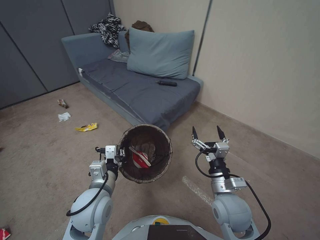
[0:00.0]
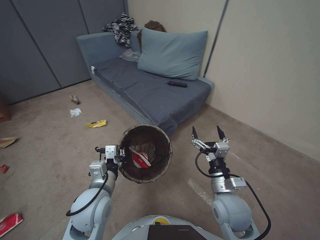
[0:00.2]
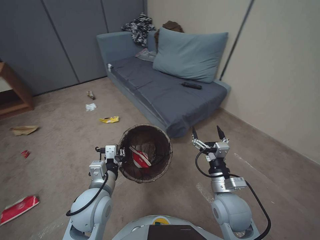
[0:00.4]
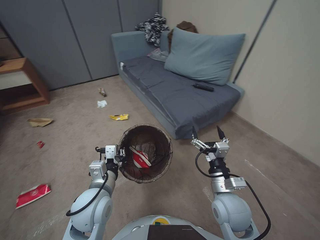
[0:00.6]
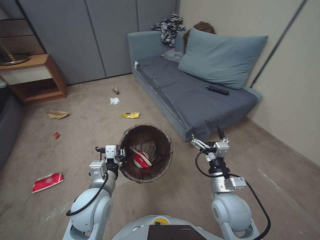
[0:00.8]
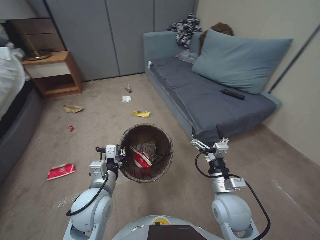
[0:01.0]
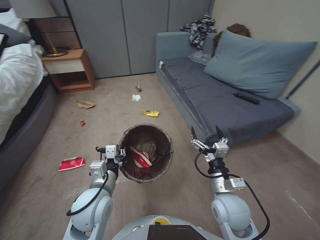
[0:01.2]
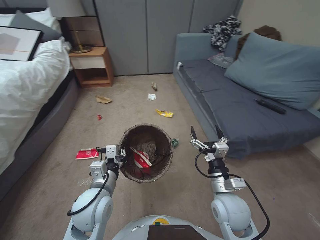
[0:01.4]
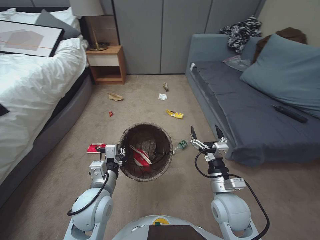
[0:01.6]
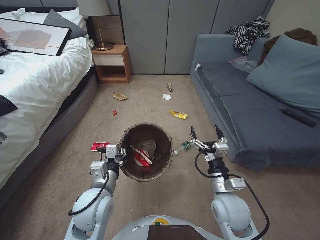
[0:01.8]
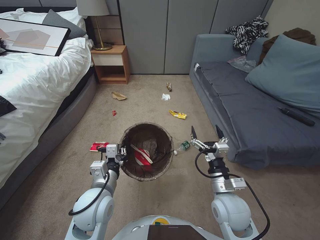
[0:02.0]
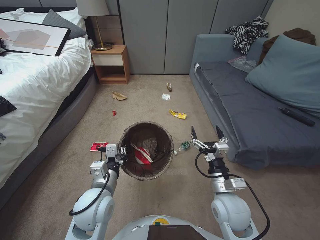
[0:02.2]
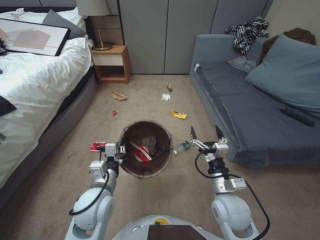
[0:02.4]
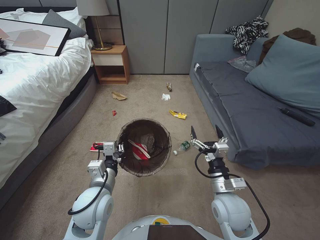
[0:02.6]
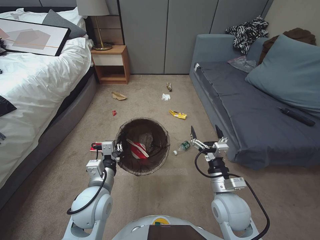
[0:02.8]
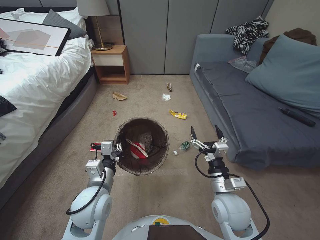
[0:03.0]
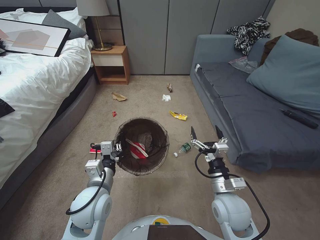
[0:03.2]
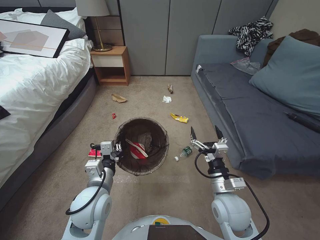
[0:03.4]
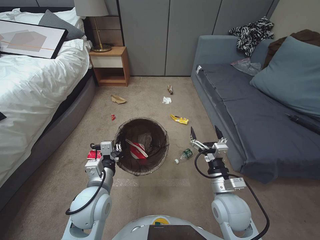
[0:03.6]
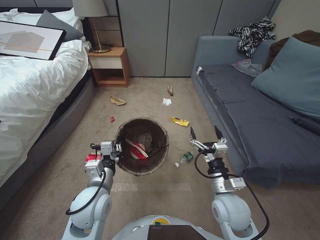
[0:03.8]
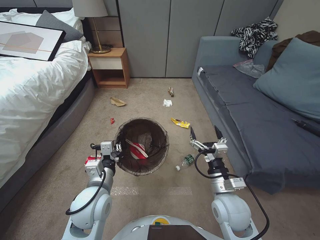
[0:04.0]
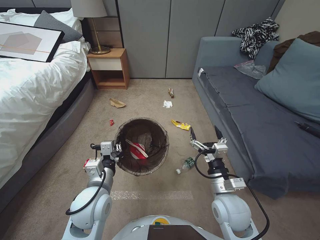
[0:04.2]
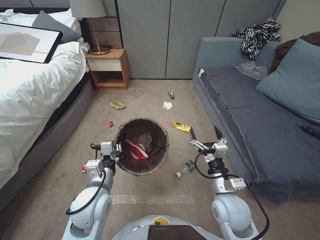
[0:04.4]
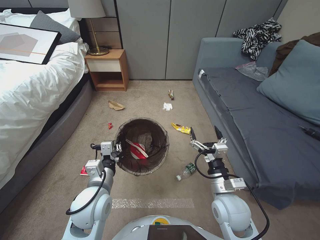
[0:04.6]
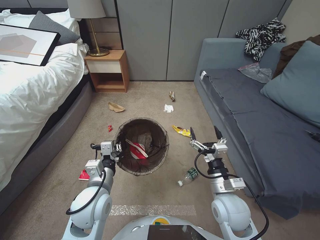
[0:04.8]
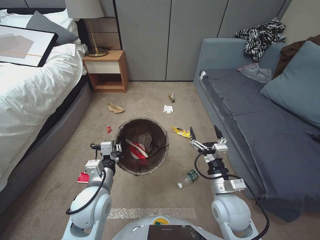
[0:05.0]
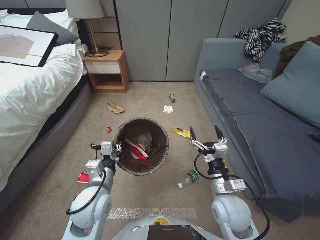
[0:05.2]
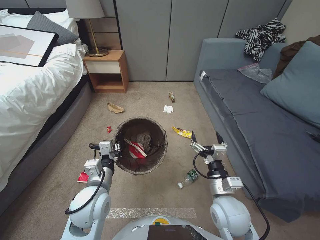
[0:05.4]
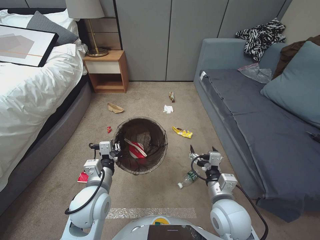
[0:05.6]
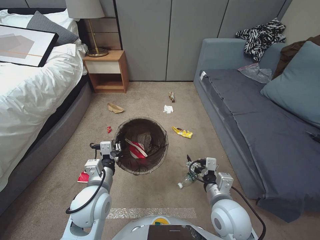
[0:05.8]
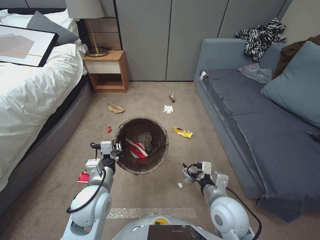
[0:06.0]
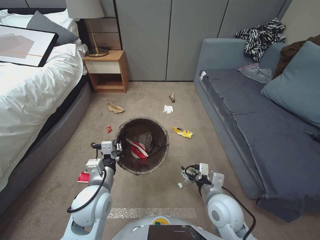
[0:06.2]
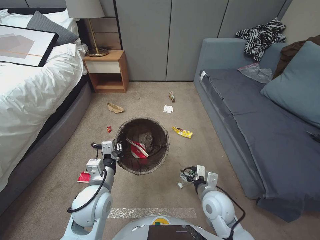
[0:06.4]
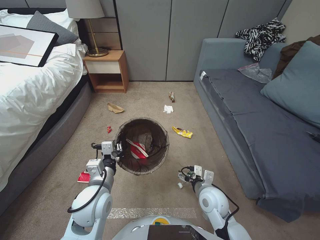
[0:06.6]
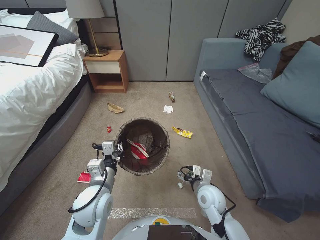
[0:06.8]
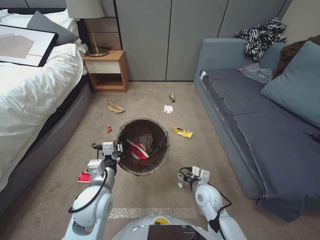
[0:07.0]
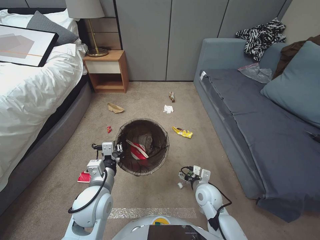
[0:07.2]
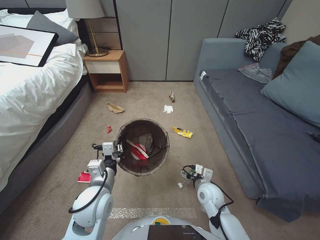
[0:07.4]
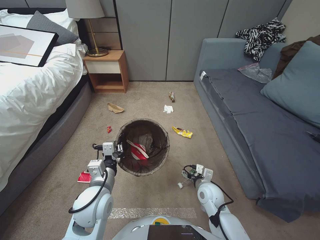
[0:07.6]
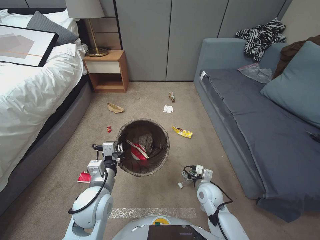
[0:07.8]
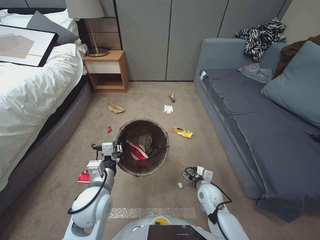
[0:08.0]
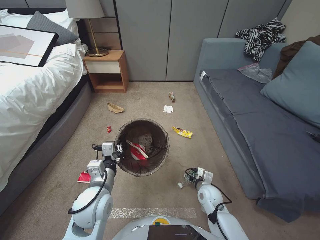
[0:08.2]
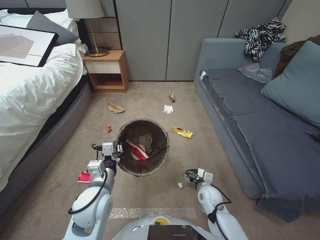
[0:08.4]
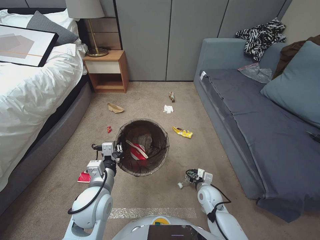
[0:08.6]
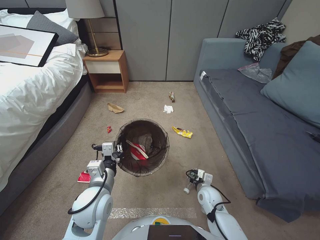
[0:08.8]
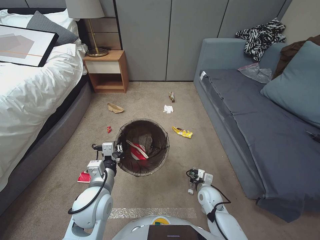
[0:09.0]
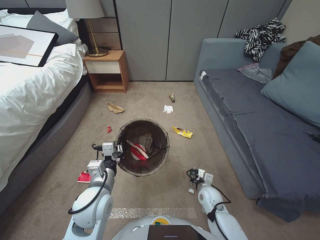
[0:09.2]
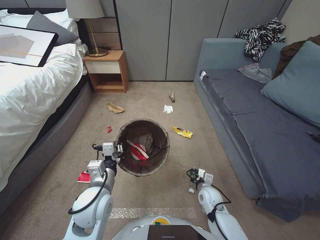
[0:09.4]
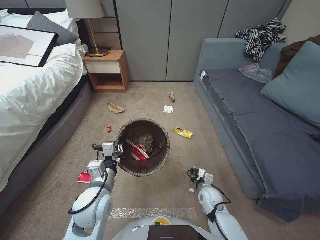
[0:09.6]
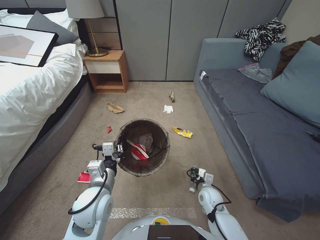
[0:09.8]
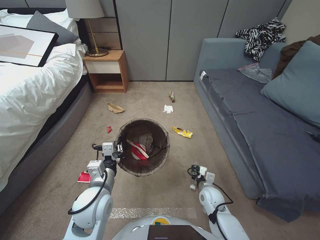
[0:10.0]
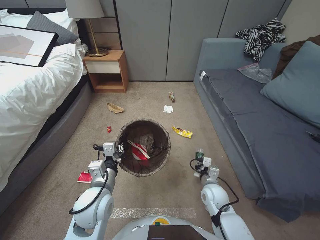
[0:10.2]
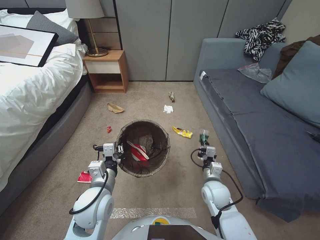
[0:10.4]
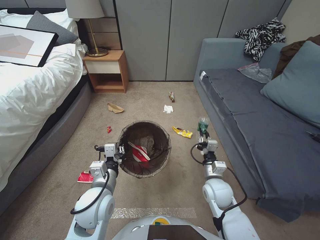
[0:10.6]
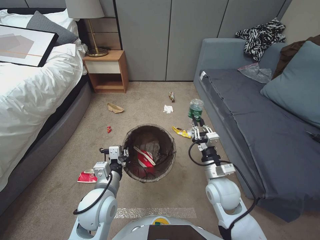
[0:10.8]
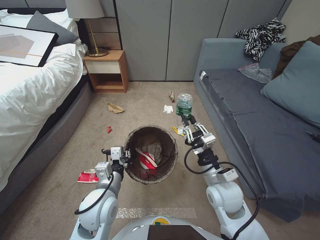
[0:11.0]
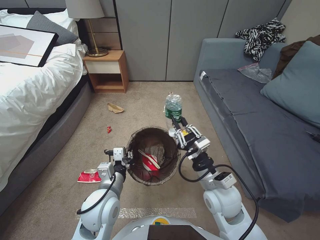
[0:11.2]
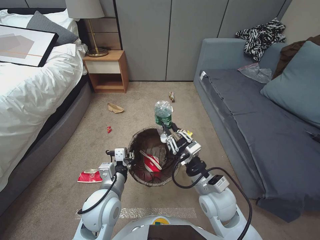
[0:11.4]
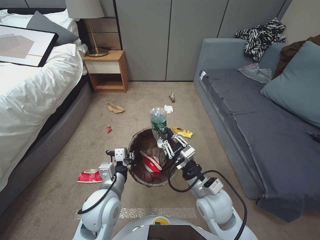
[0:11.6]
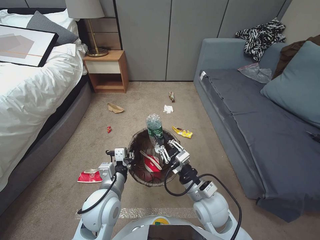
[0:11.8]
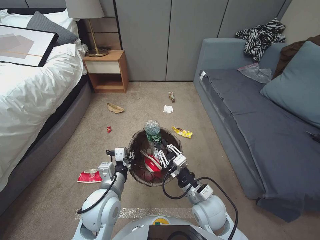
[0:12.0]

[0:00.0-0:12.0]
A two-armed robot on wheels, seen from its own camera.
Task of the whole recording: Pick up the trash bin, then pick up the garbage from the floor and place it into the trash bin.
0:01.6 to 0:03.0: There are only small adjustments of the grippers.
0:06.0 to 0:07.6: The right gripper moves downward and forward, roughly 15 cm.
0:07.6 to 0:09.0: The right gripper heads downward, covering some 5 cm, and closes up.
0:09.0 to 0:10.4: The right gripper heads upward, covering approximately 5 cm.
0:10.4 to 0:12.0: The right gripper goes about 15 cm upward, to the left and backward.

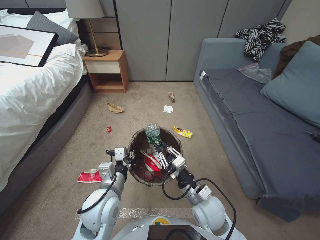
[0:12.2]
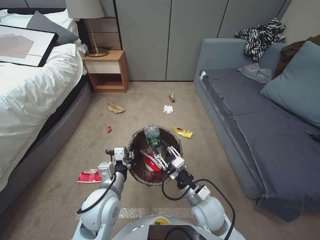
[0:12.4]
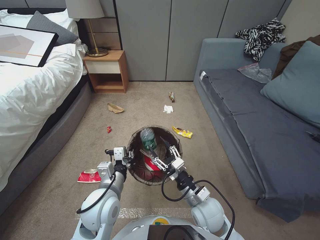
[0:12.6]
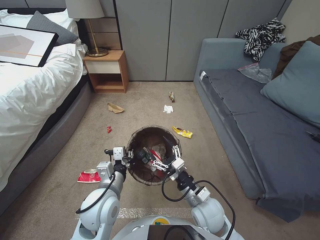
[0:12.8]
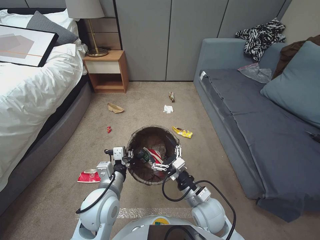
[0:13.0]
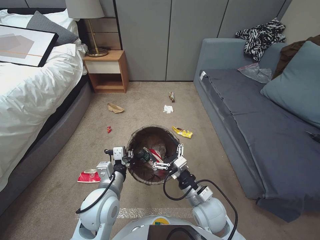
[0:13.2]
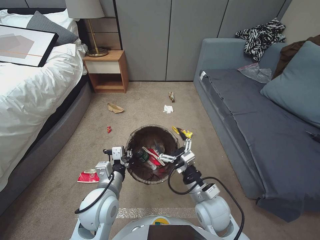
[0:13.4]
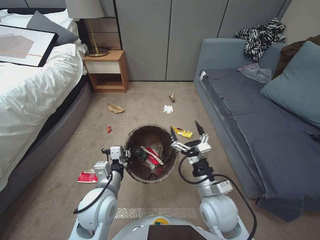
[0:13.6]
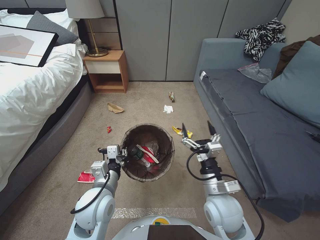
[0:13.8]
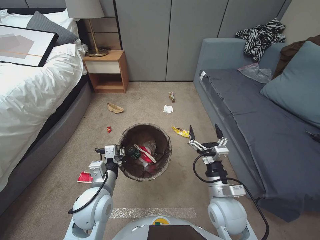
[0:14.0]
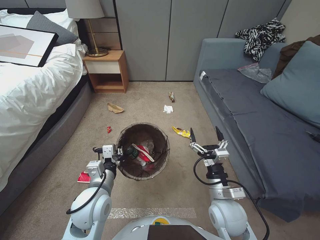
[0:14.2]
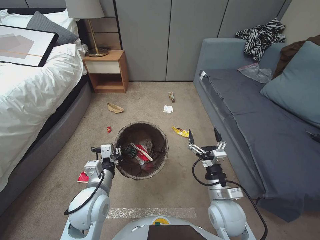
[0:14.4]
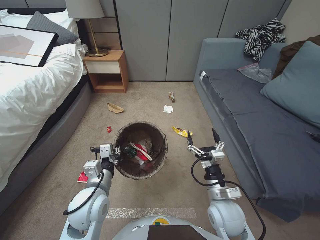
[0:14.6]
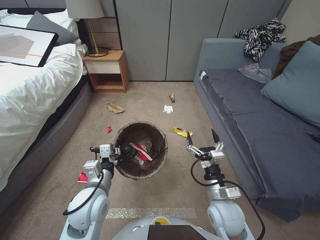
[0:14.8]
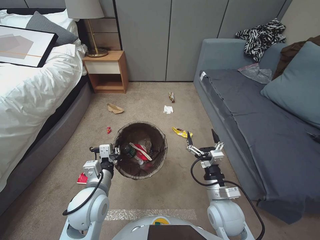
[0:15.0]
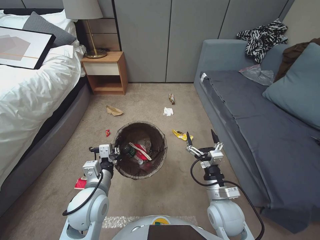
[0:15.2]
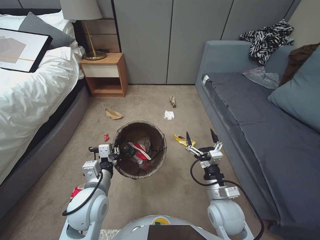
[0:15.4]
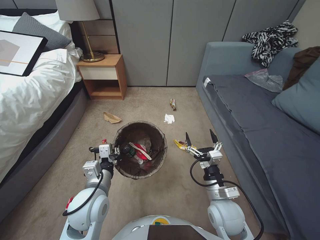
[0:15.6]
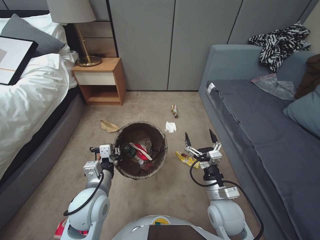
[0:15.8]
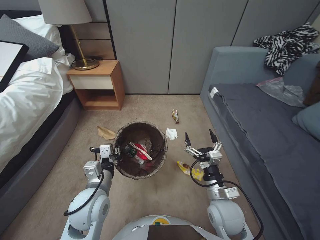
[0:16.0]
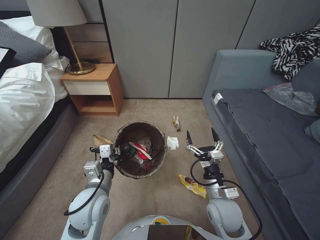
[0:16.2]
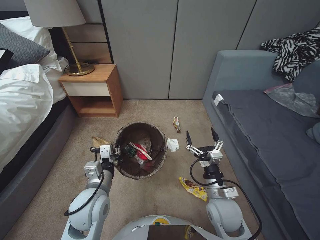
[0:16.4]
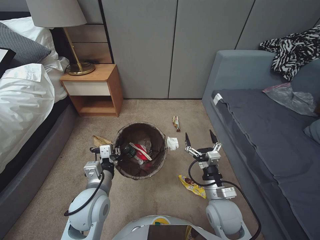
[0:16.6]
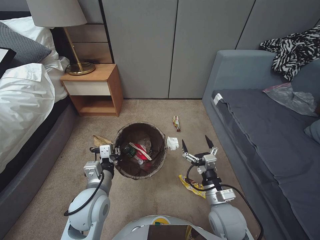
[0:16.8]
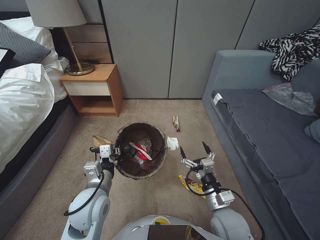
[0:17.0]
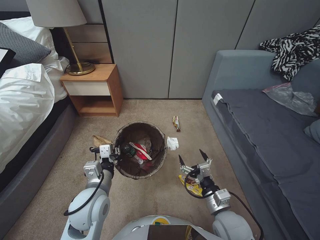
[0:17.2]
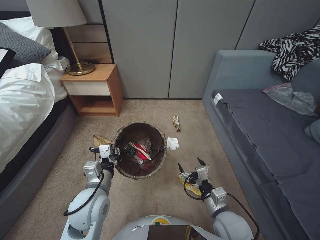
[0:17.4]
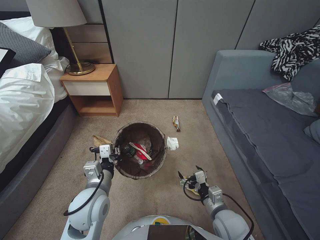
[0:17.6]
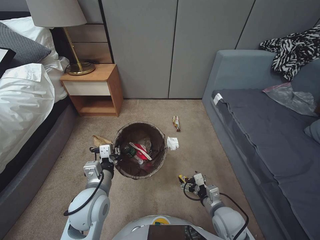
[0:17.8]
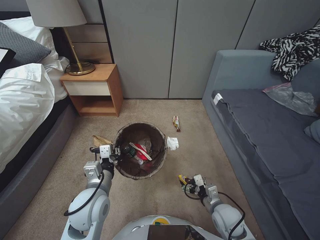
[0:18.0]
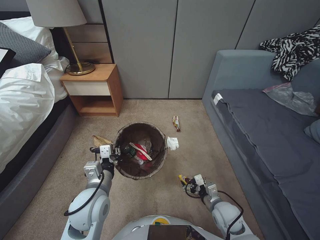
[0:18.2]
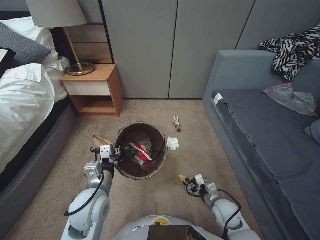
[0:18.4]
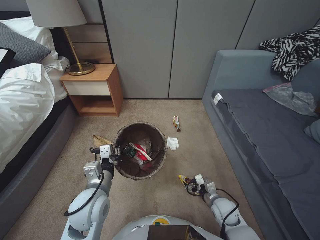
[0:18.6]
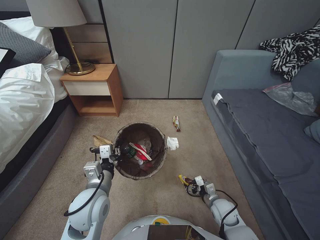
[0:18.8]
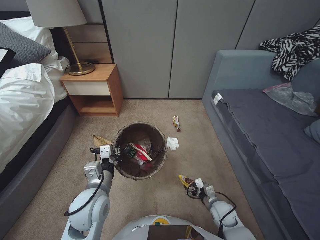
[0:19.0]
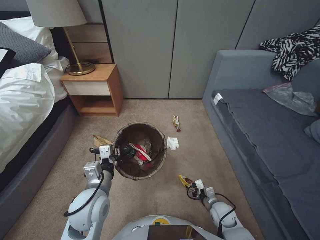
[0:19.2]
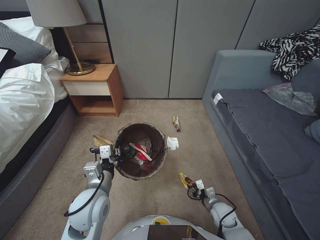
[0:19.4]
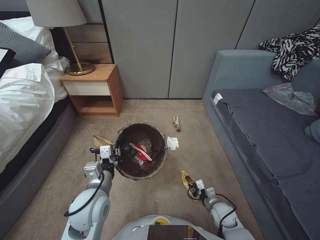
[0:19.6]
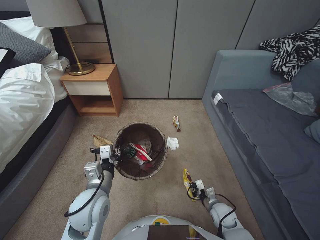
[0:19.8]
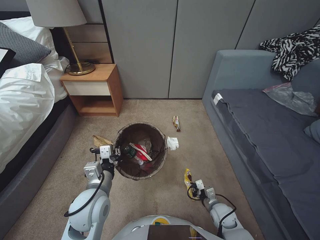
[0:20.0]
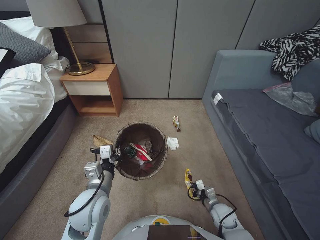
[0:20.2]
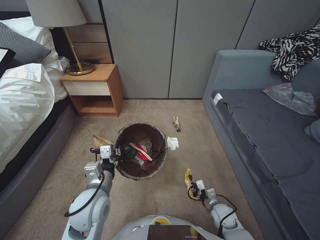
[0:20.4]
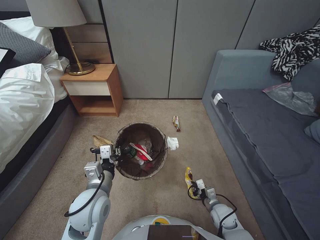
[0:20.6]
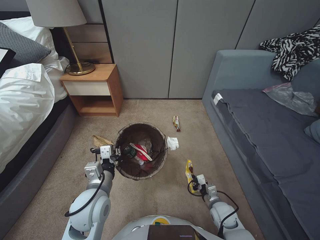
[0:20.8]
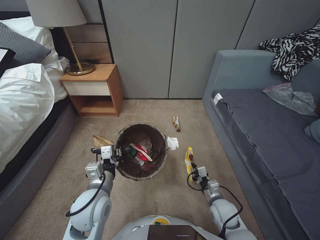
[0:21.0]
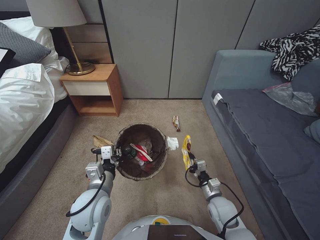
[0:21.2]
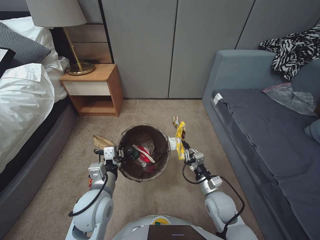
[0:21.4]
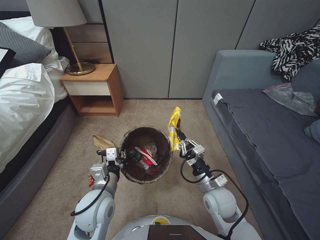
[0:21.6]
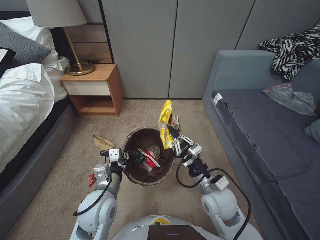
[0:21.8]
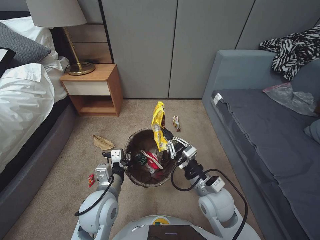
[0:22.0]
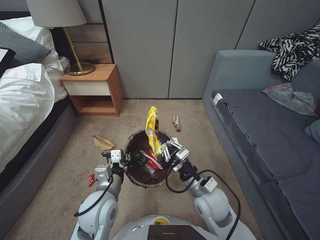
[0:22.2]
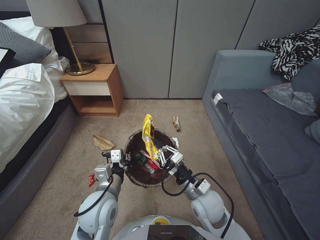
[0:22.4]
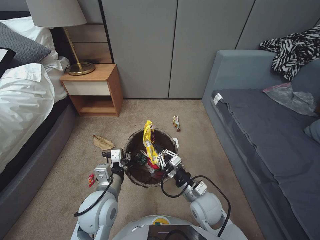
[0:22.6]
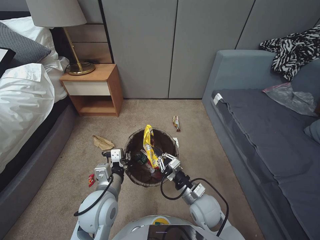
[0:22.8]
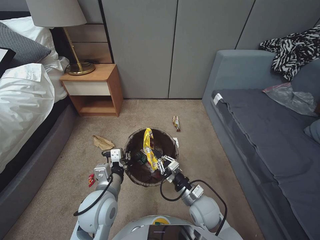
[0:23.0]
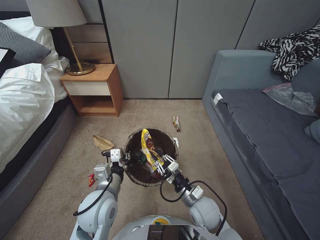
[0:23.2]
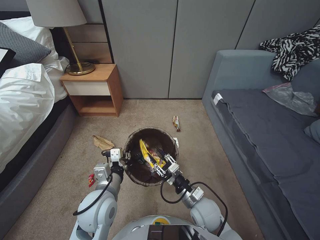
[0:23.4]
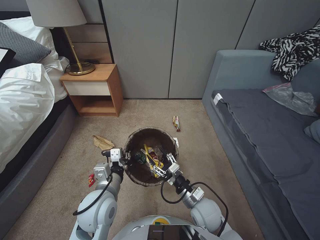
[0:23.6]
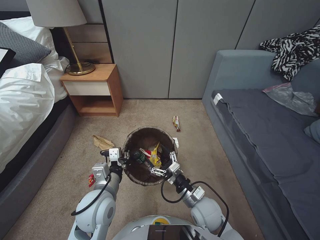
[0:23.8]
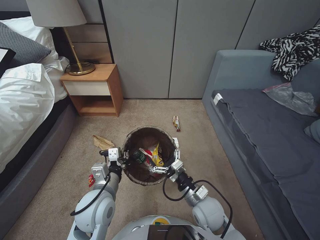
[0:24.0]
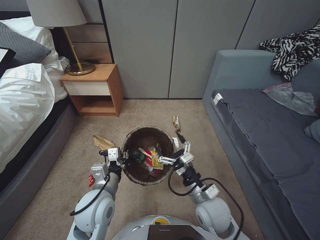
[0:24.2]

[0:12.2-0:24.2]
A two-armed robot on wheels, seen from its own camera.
Task of the whole recording: Pick up the trash bin, then pick up the garbage from the floor and place it into the trash bin.
0:12.2 to 0:13.8: The right gripper opens its fingers.
0:13.8 to 0:15.2: The grippers stay close to where they were, moving slightly.
0:16.6 to 0:18.2: The right gripper travels downward by about 10 cm.
0:18.2 to 0:19.8: The right gripper goes approximately 10 cm downward, and closes its fingers.
0:19.8 to 0:21.2: The right gripper travels upward by some 10 cm.
0:21.2 to 0:22.6: The right gripper travels to the left and upward by roughly 15 cm.
0:22.6 to 0:24.2: The right gripper opens up.
